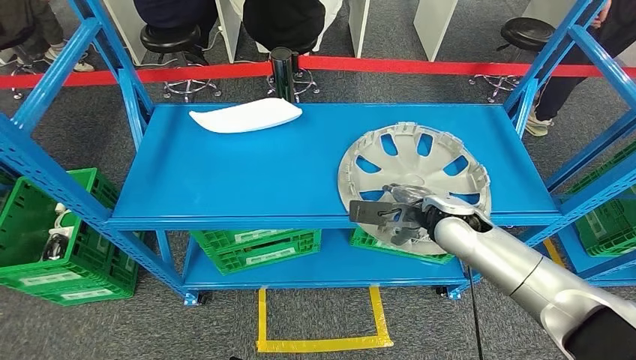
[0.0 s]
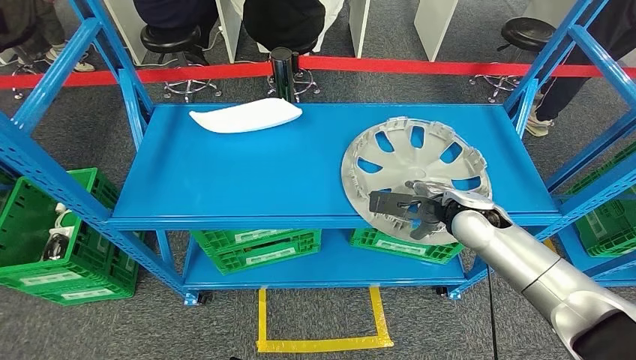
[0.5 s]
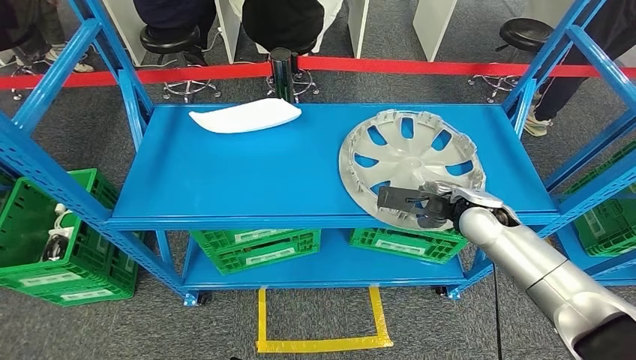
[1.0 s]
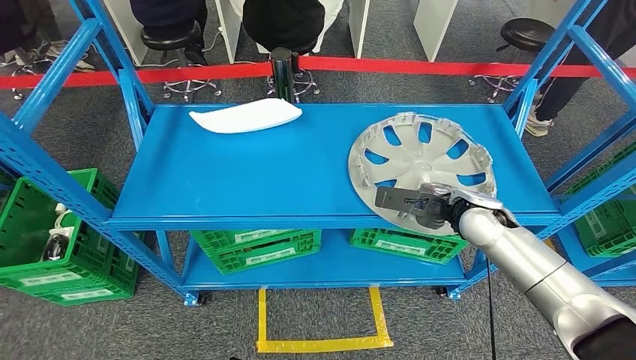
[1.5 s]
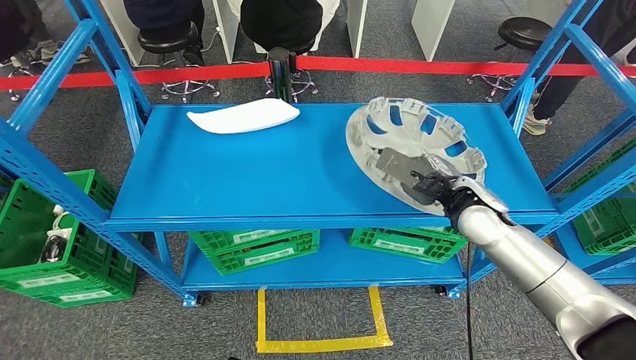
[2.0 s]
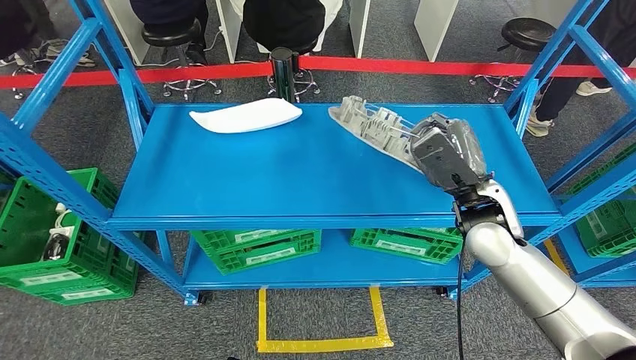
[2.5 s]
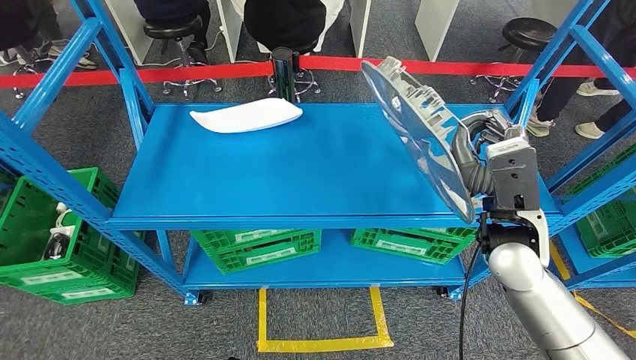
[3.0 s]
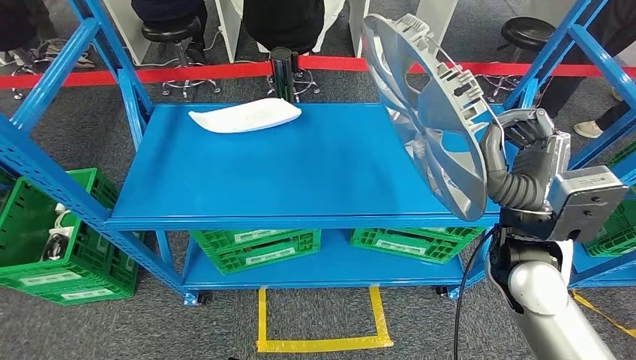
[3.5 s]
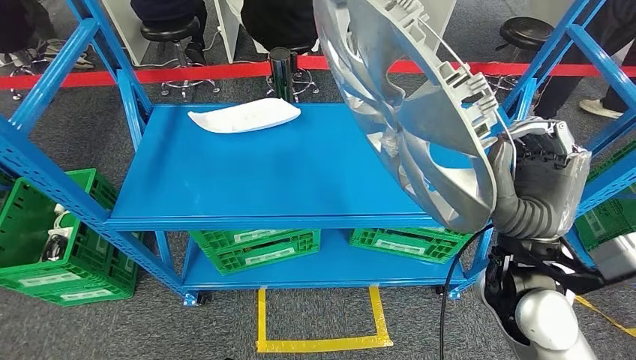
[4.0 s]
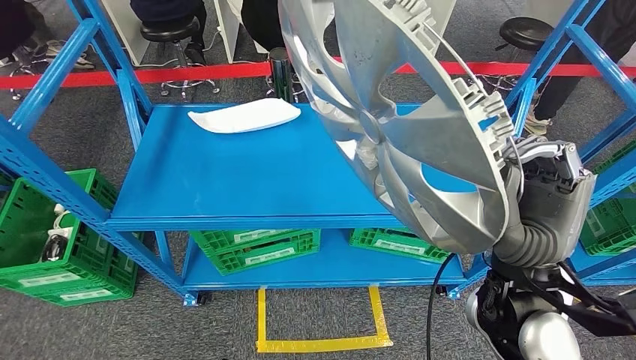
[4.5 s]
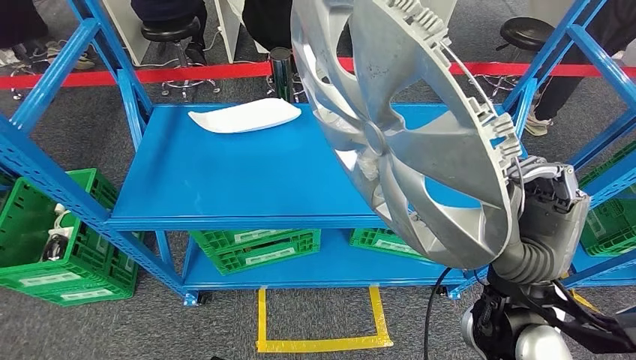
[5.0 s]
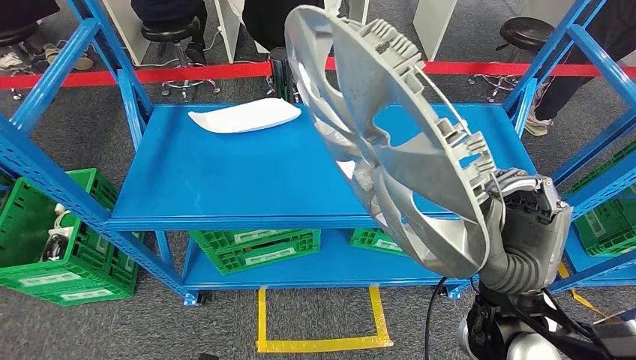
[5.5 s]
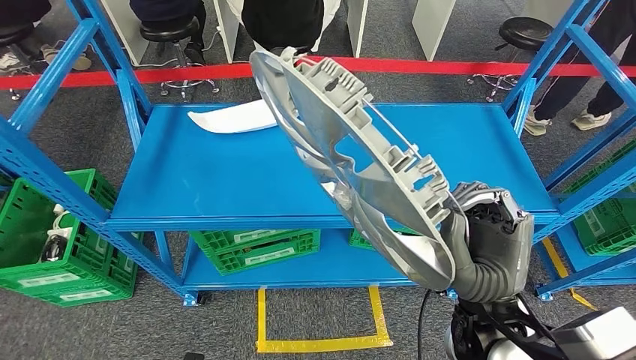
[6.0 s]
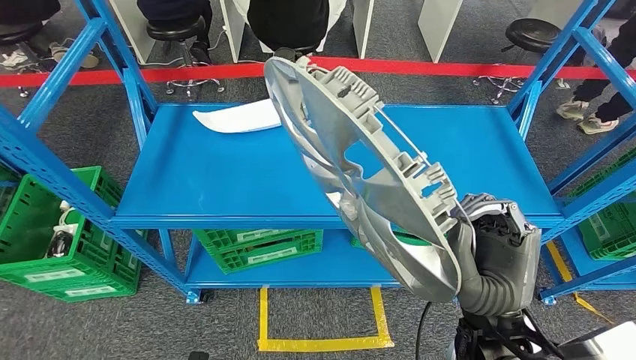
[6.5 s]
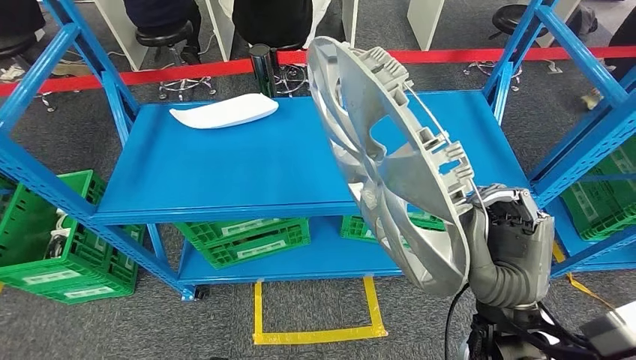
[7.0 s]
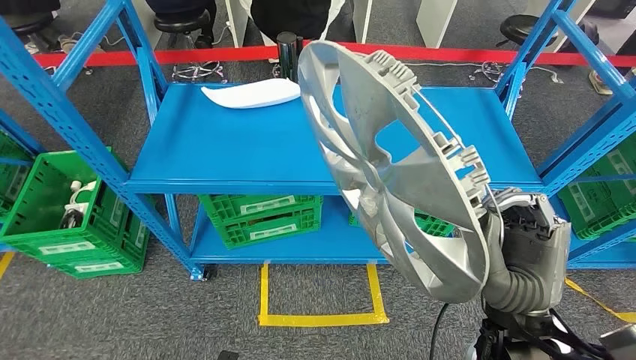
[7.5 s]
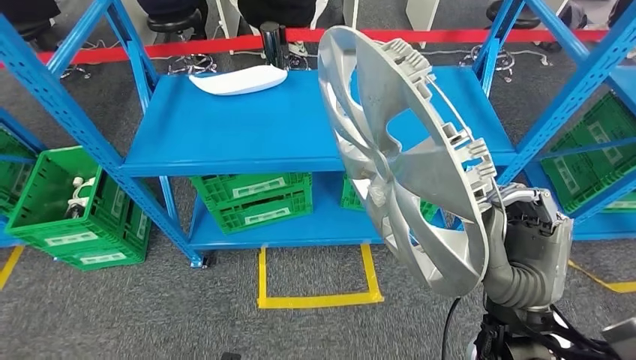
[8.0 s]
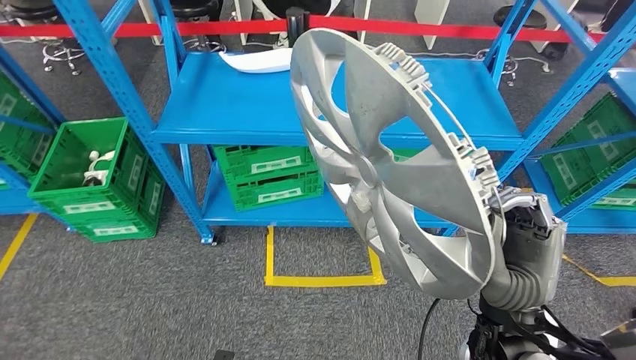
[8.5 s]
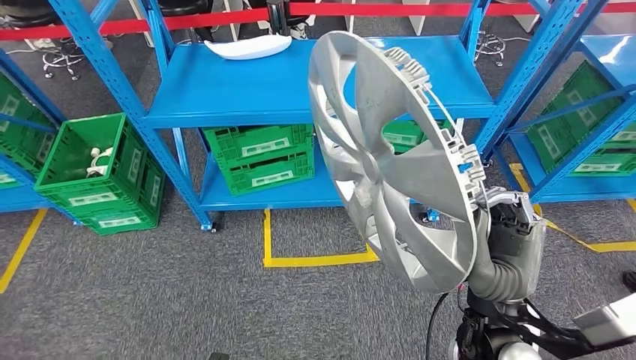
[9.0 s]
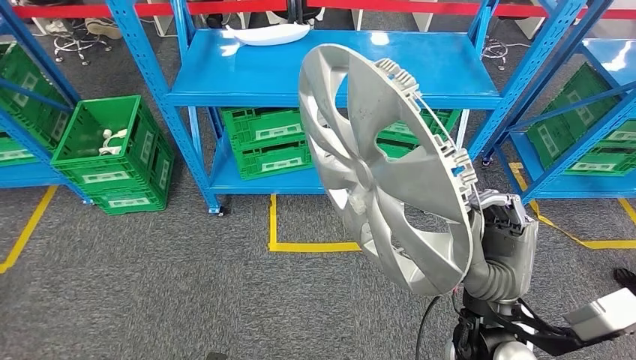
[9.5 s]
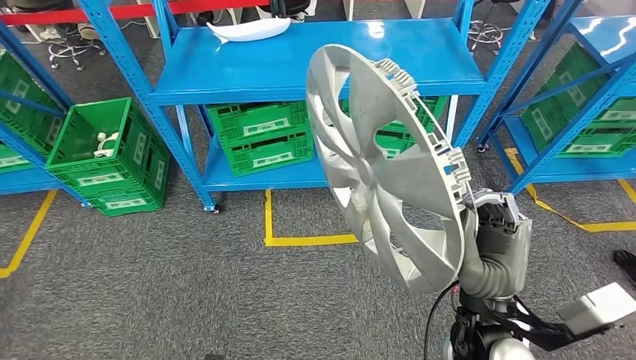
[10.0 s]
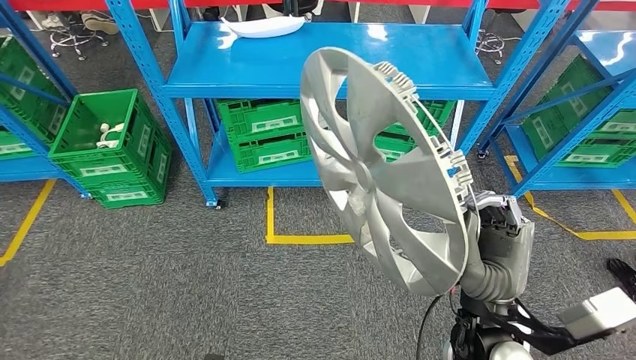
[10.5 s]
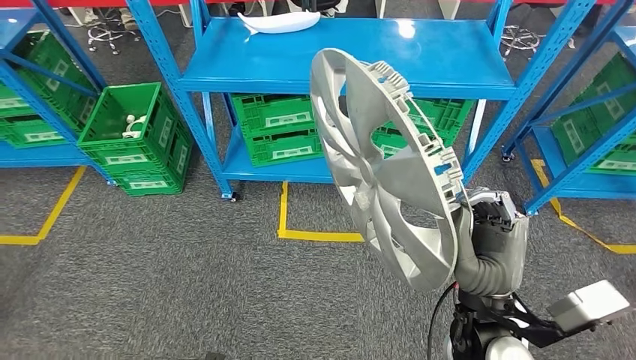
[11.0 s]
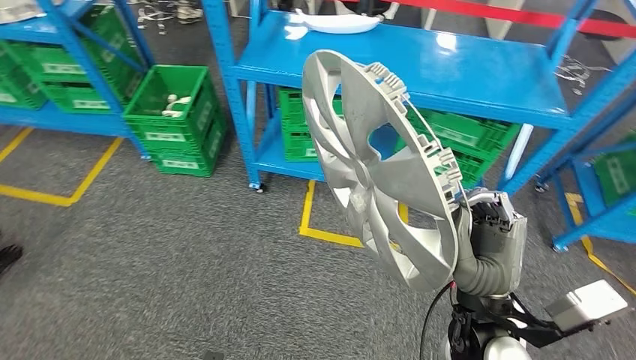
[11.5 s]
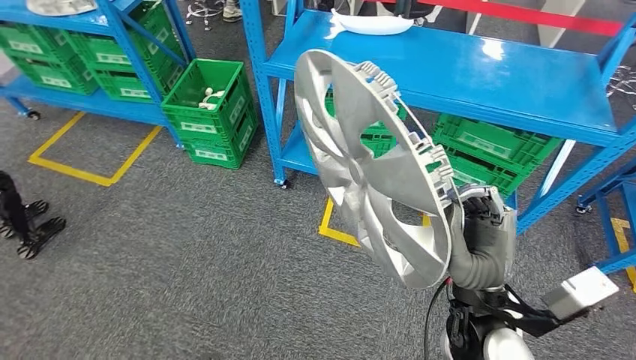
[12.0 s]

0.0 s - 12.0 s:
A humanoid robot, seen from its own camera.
Step, 0.0 s - 3.5 s: Pick up the small component from the shelf.

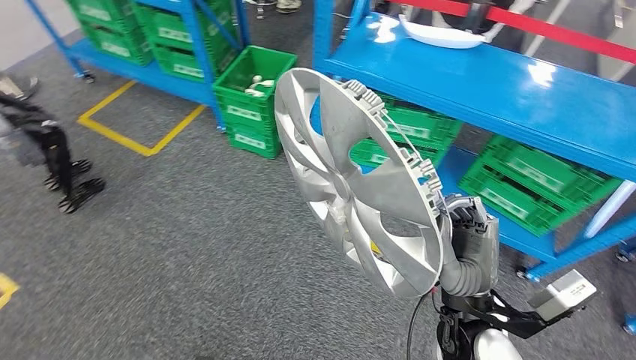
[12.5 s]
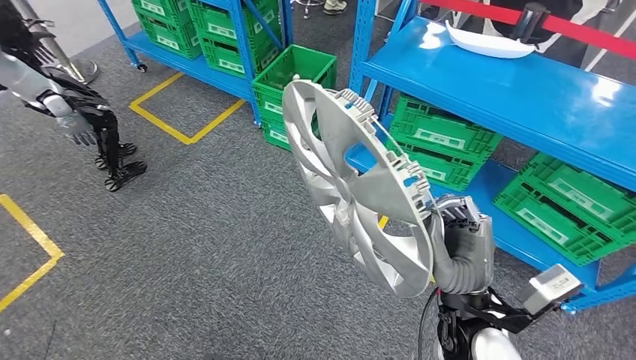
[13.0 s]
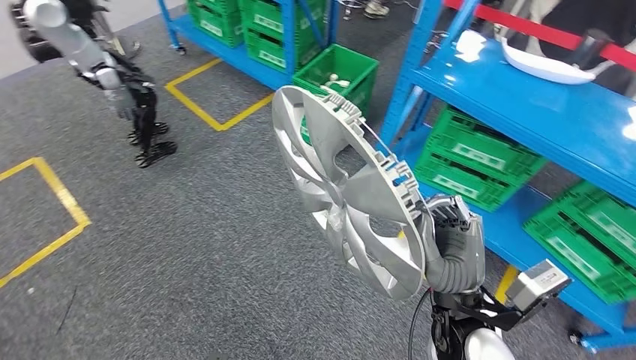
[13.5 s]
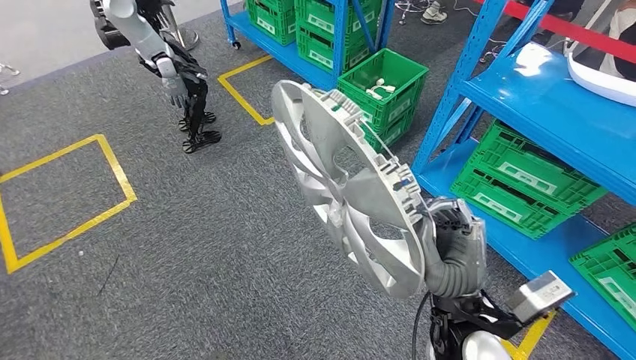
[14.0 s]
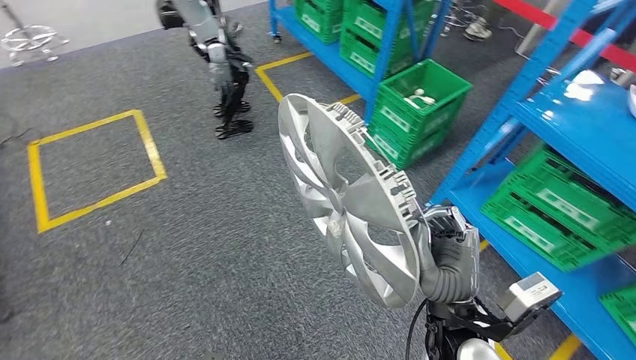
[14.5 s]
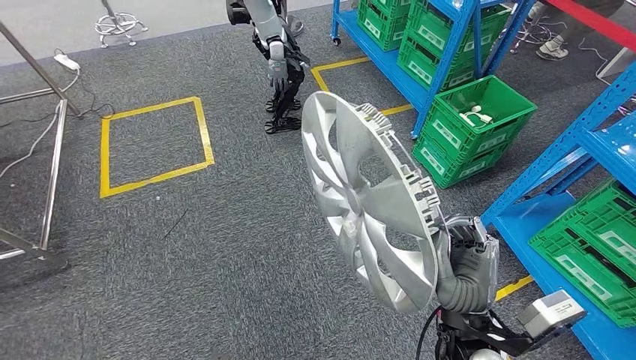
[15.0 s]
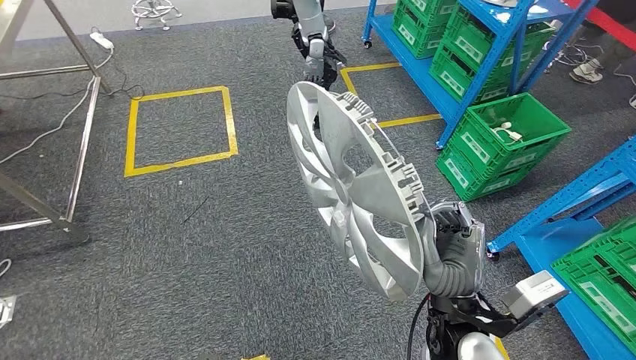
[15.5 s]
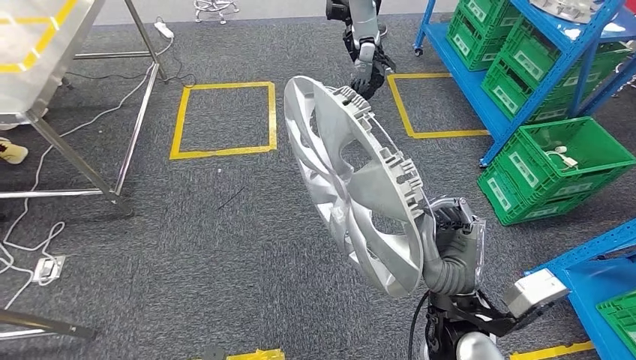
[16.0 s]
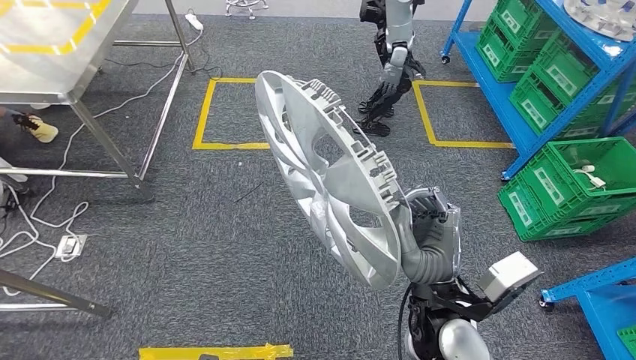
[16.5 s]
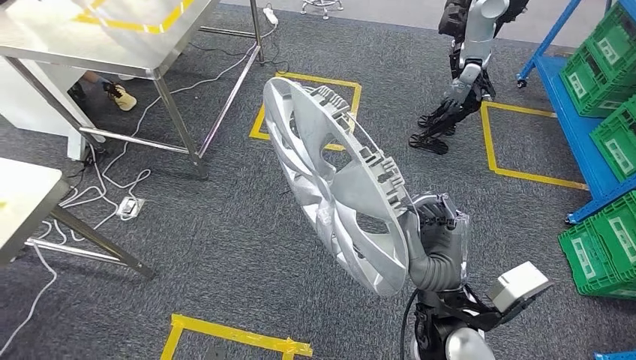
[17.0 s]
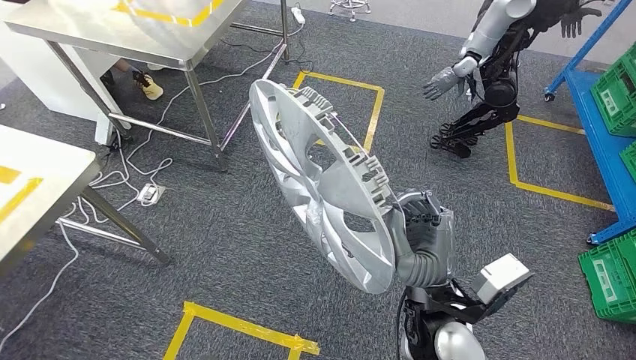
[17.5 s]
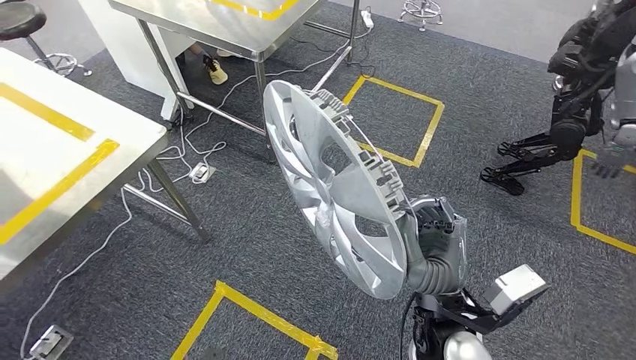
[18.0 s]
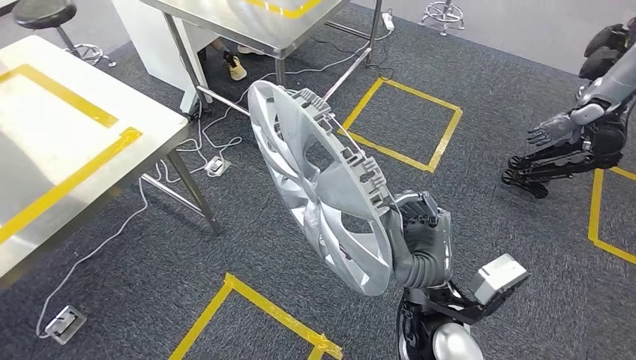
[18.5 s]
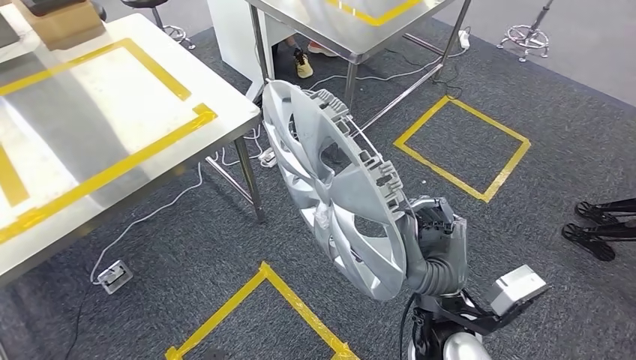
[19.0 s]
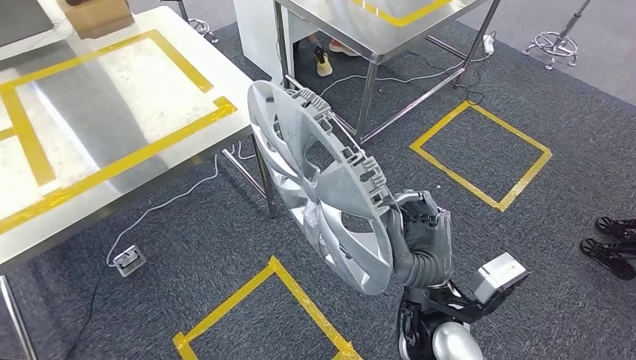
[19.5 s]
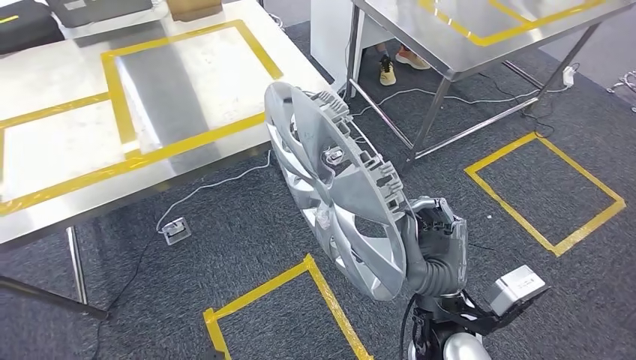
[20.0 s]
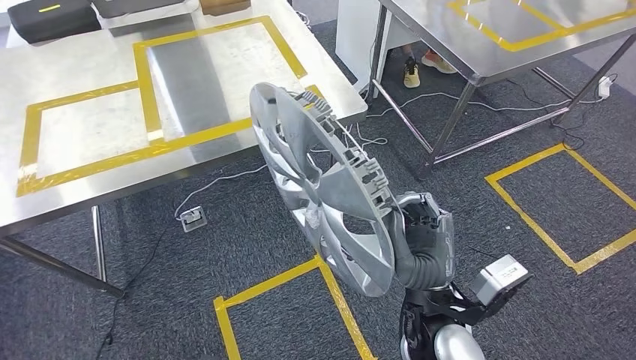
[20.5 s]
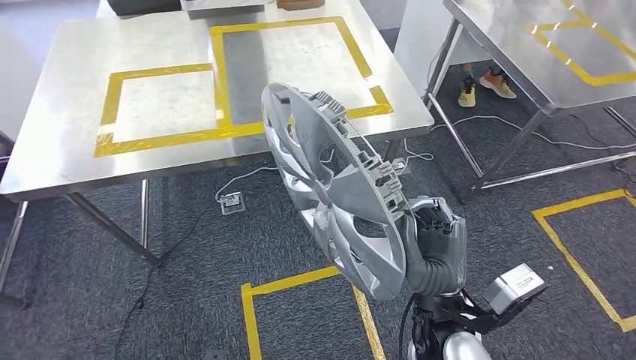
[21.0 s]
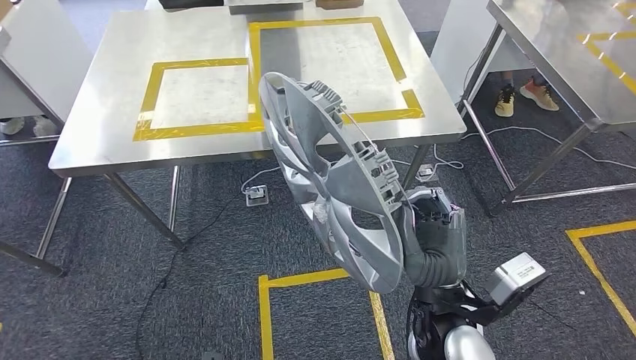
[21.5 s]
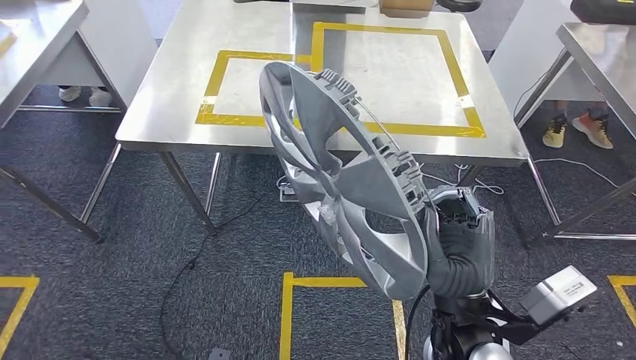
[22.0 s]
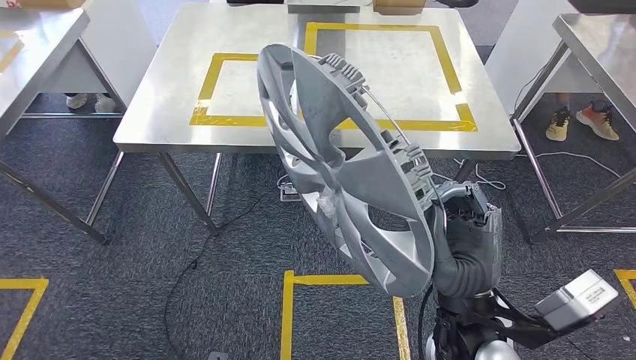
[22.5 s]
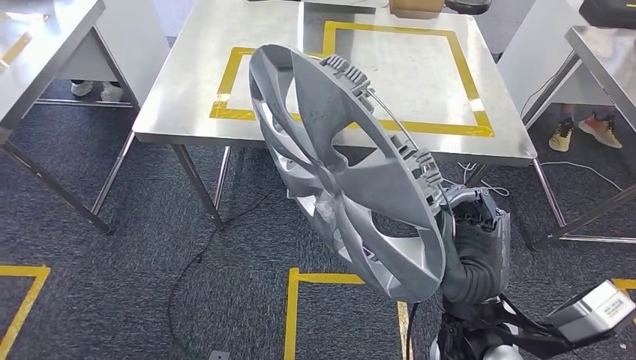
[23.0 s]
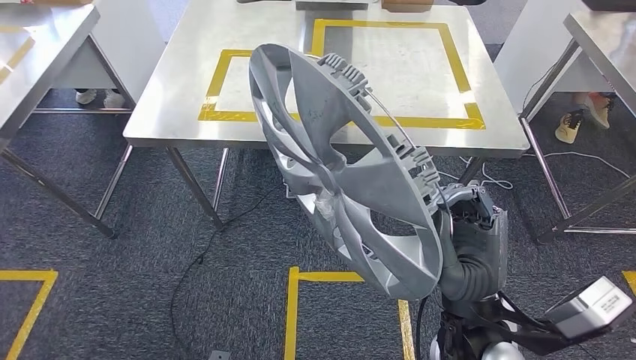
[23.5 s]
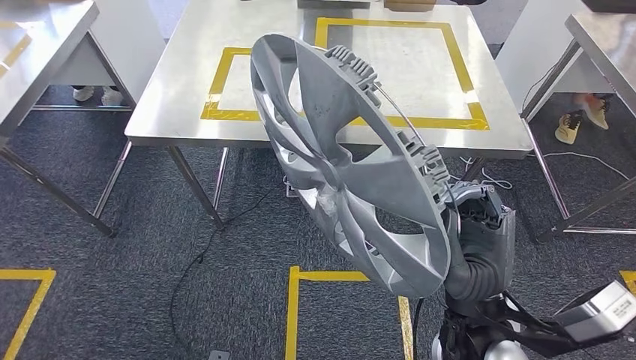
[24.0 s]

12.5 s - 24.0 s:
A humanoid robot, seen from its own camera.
Step, 12.5 s - 23.5 s: Move the small component to the workbench.
